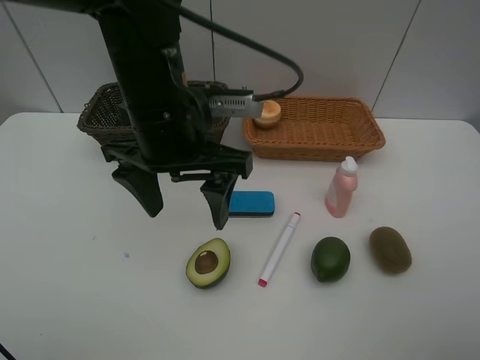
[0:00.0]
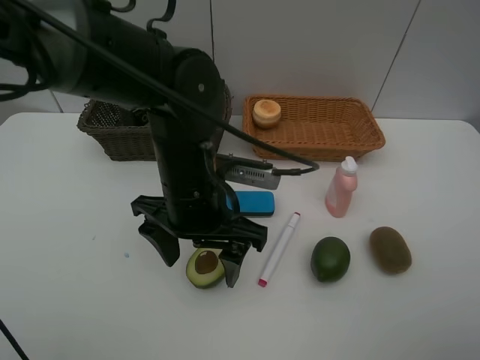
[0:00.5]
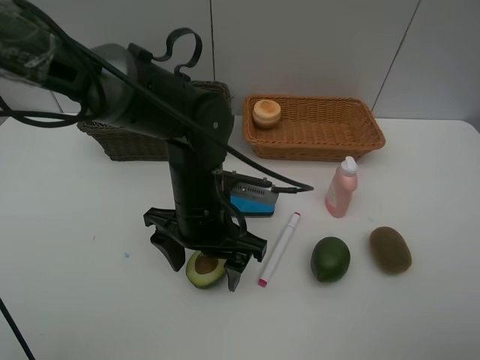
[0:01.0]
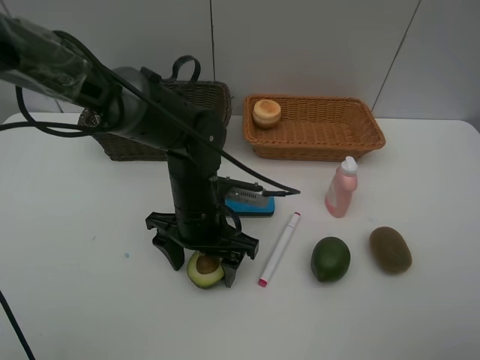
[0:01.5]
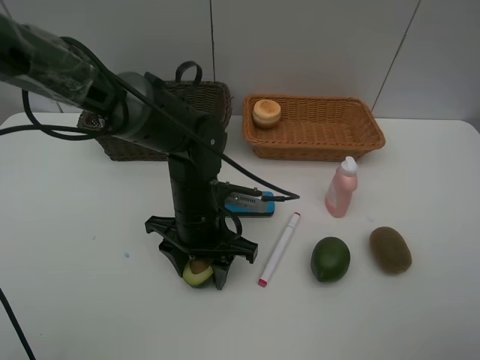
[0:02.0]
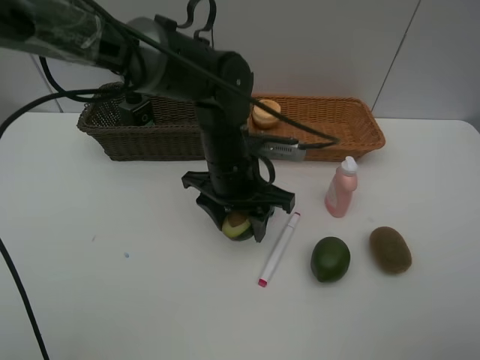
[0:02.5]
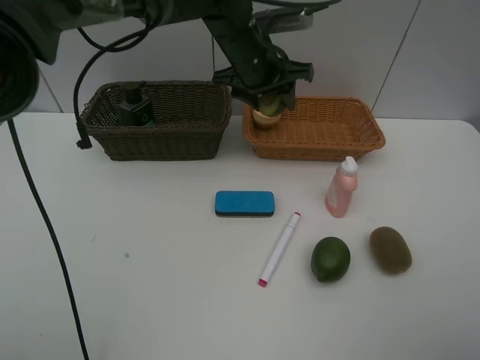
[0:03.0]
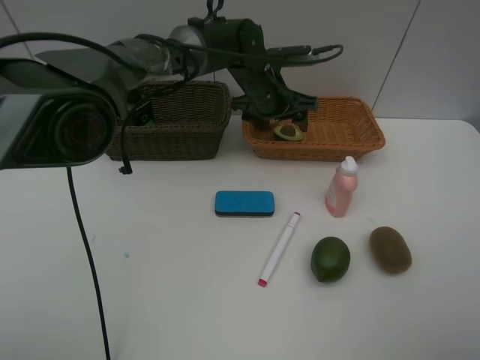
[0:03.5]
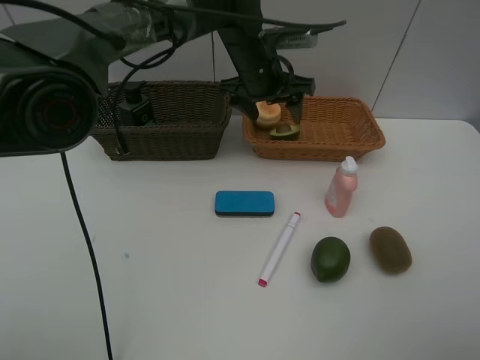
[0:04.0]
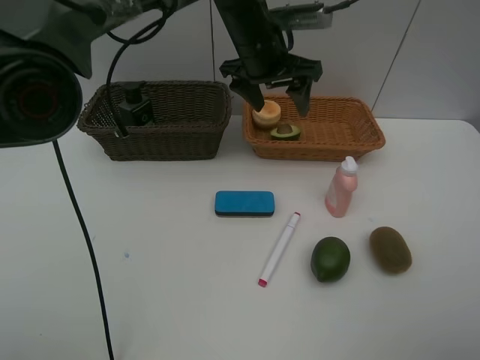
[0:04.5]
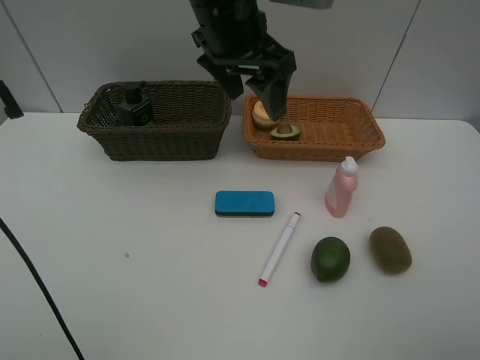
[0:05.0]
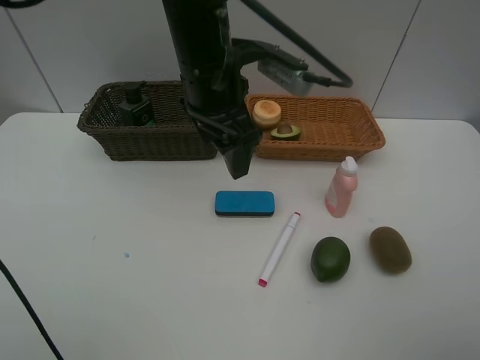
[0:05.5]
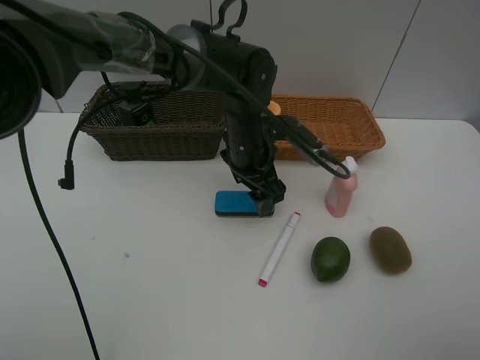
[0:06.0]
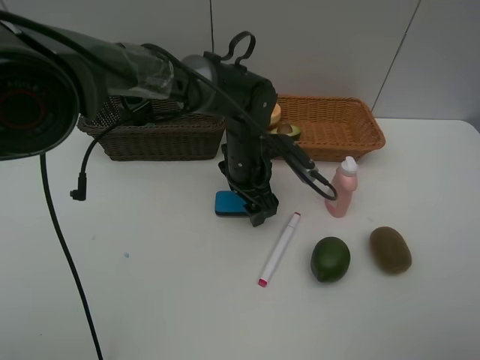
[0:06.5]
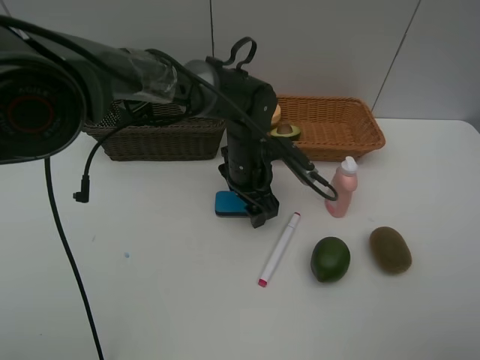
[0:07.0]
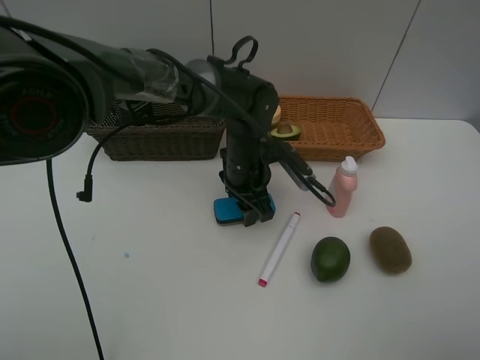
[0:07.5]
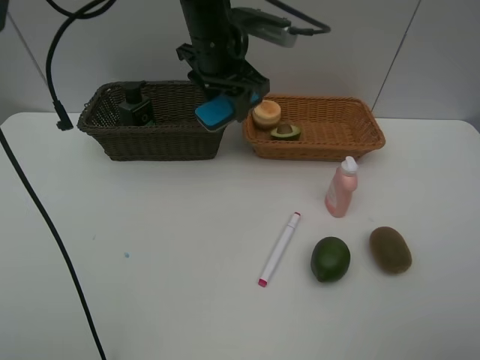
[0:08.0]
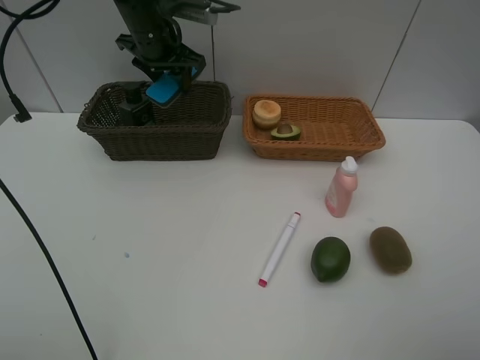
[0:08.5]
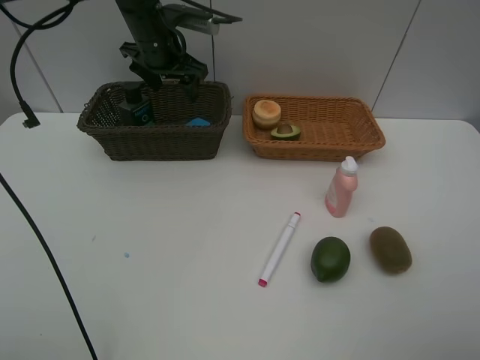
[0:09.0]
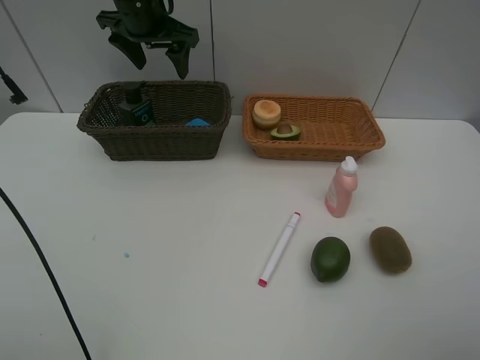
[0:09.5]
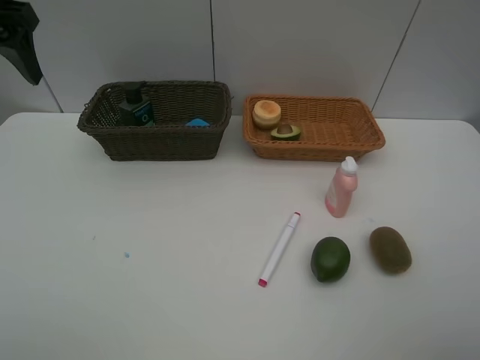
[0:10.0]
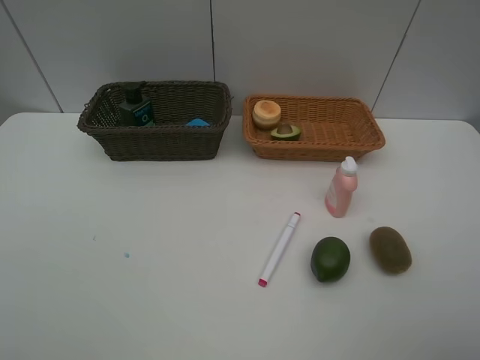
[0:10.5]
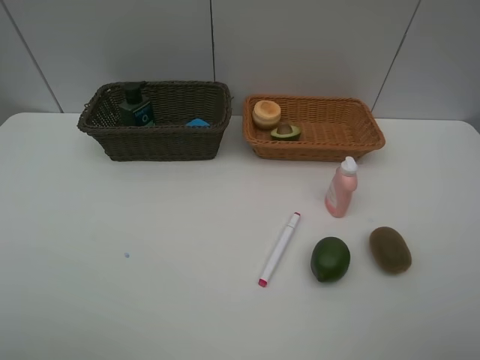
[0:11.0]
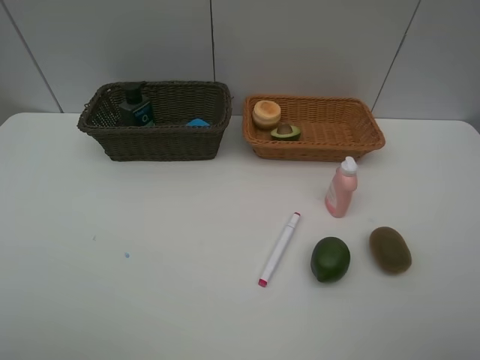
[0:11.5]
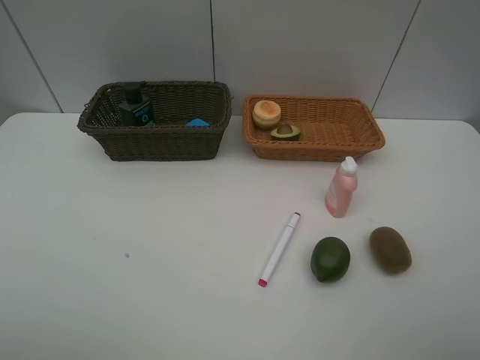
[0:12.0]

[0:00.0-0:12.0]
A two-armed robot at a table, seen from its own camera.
Task of the whole recording: Place multiple objects separately in different baskets.
Step, 0:00.0 to 0:02.0: Pick up the avocado with left gripper.
Step, 0:02.5 to 0:03.5: Place the avocado in the light basket with left gripper.
Step, 0:04.0 to 0:07.5: Pick up blackboard eraser with left gripper.
Step, 0:08.0 to 0:08.5: Place the blackboard eraser in the dark basket with left gripper.
0:00.0 to 0:02.0: The left gripper is displaced downward by roughly 15 cm, and closes.
0:02.0 to 0:04.0: The left gripper shifts about 20 cm forward and upward, and opens its fingers.
0:04.0 to 0:06.0: The left gripper shifts roughly 10 cm backward and downward.
0:06.0 to 0:08.0: The left gripper shifts approximately 15 cm upward, forward and to the left, and closes.
0:08.0 to 0:10.0: The left gripper goes about 25 cm to the left and backward, and opens up.
0:10.0 to 0:12.0: The left gripper heads backward, covering some 30 cm.

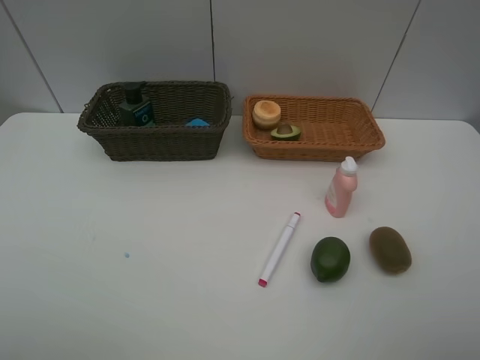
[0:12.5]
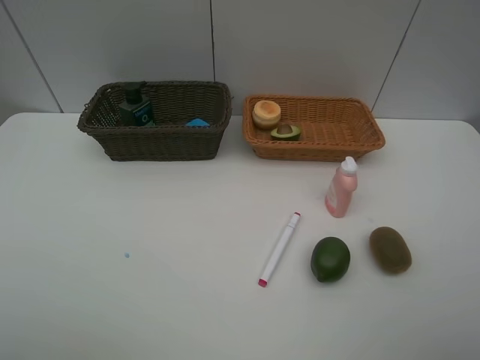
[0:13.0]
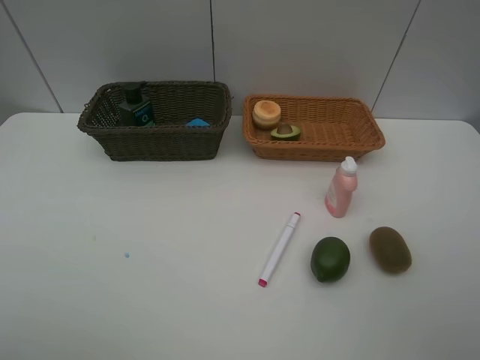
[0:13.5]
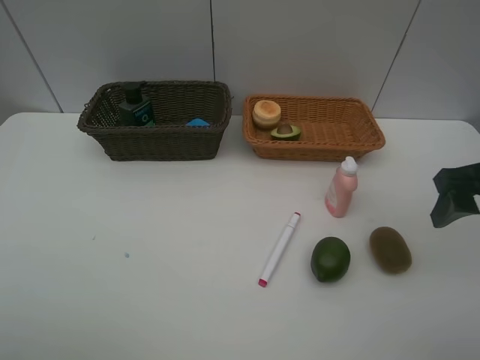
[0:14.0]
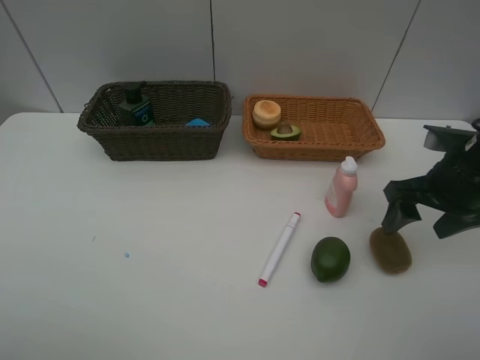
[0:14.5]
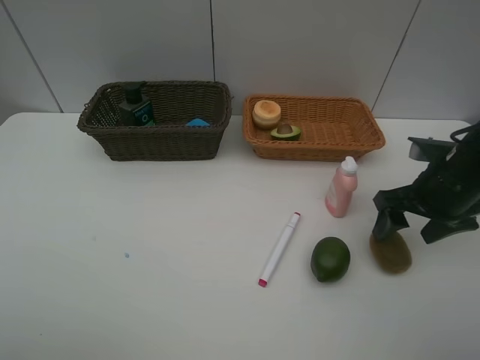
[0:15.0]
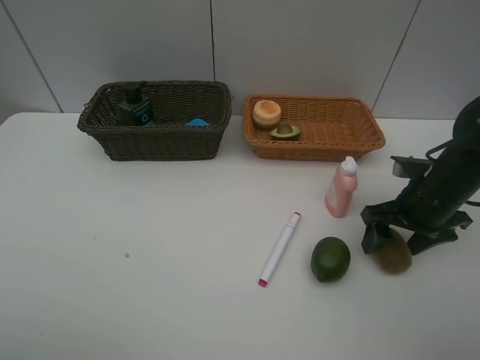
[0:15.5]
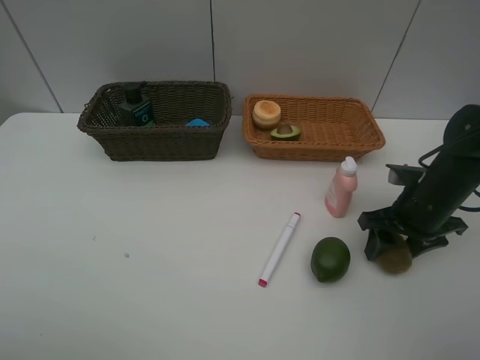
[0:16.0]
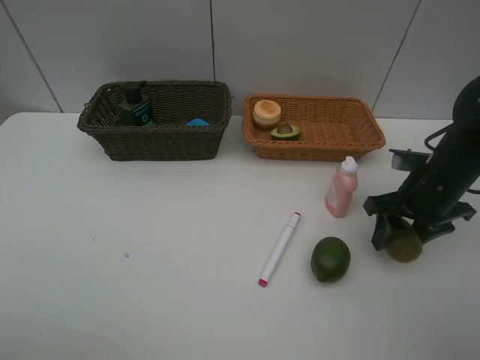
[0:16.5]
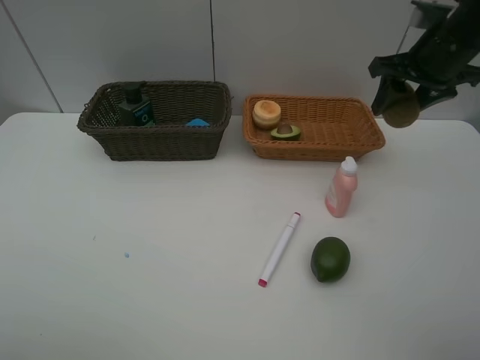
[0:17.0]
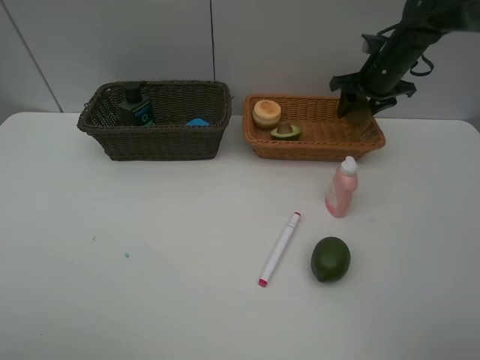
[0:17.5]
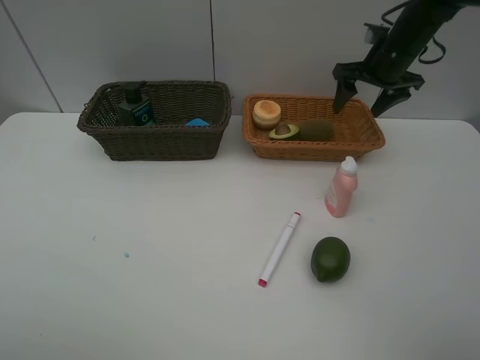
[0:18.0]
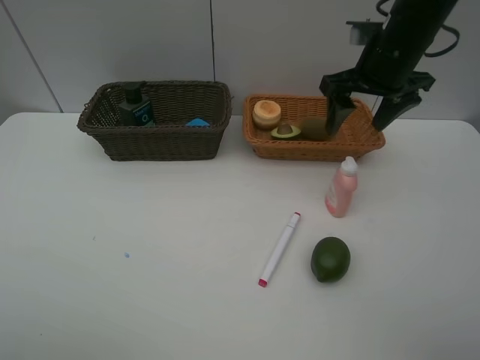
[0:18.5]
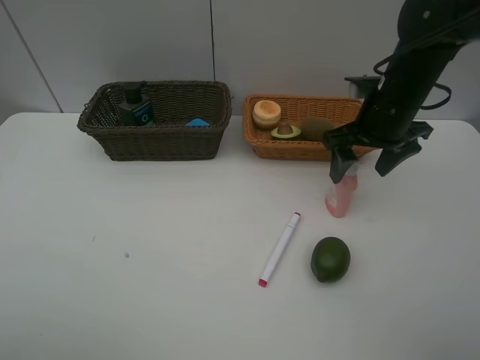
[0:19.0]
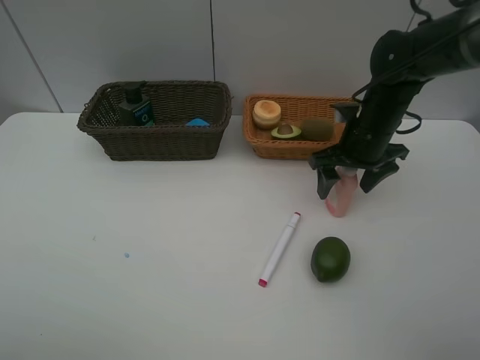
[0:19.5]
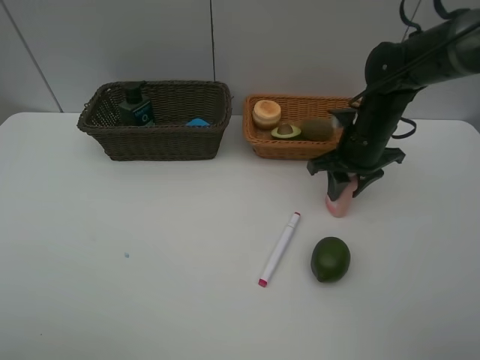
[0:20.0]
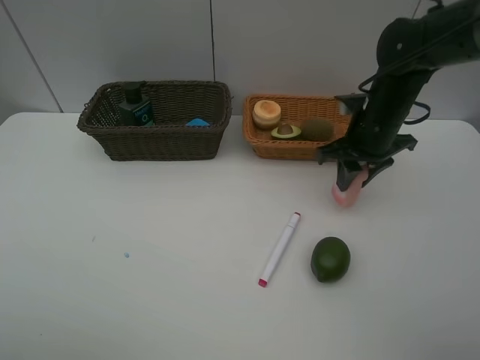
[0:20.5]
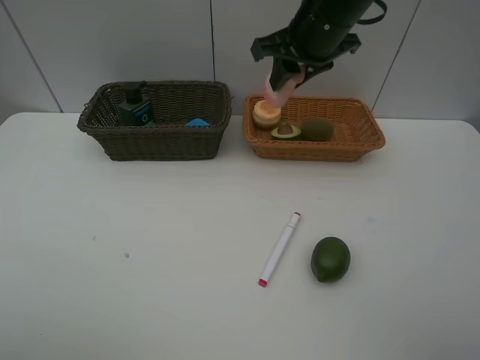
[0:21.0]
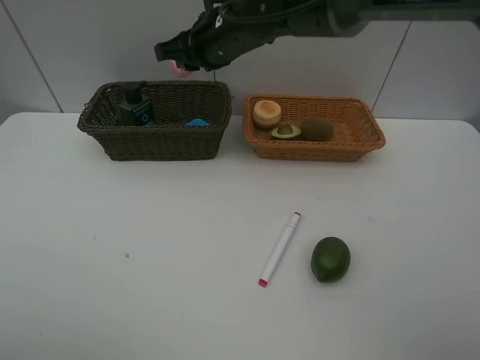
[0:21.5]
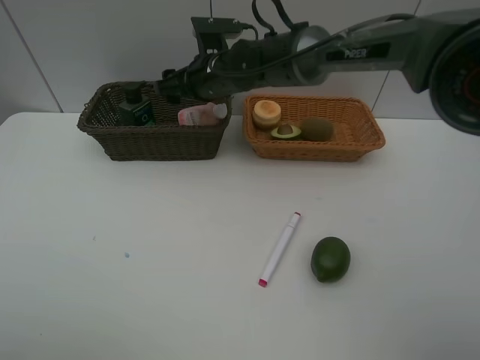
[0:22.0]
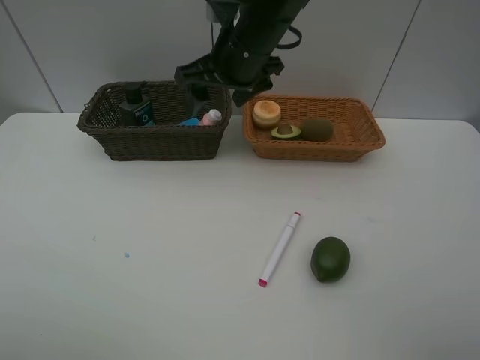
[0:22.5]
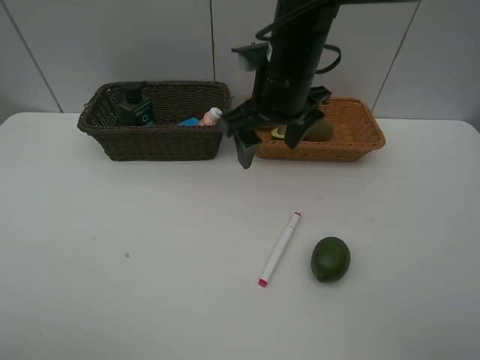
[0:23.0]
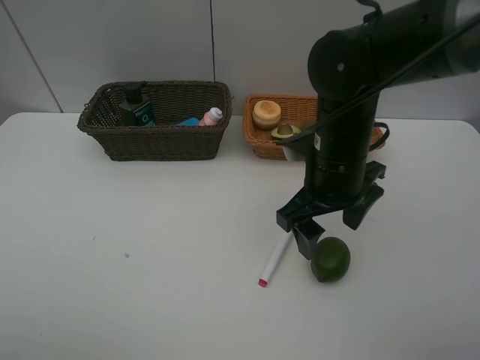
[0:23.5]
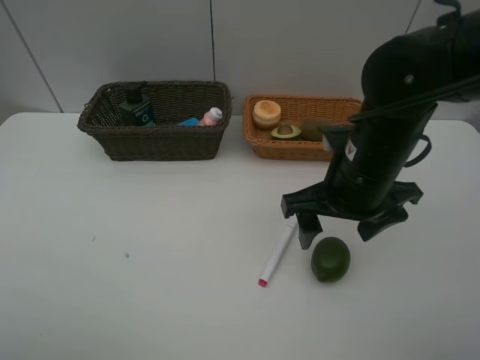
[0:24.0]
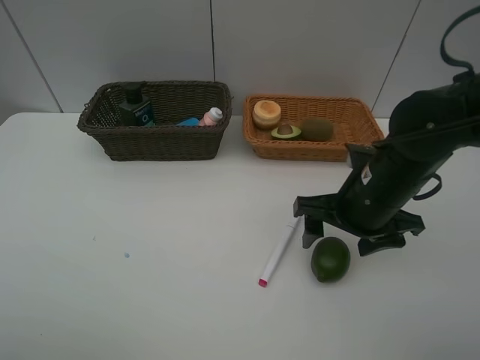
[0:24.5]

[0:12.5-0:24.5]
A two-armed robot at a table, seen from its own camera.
Task of the whole recording: Place multiple objects separately in different baskets.
Step, 0:12.5 to 0:16.5: Pick up kiwi with right gripper.
Step, 0:17.0 to 0:18.0: Place the kiwi in the light basket with right gripper.
Step, 0:18.5 to 0:20.5: Pick up the laundry detergent with right gripper.
Step, 0:21.0 to 0:22.0: Place the laundry detergent in the dark basket with right gripper.
0:12.5 to 0:14.5: The right gripper shifts roughly 25 cm forward and downward.
0:14.5 to 0:16.5: The right gripper changes place by some 5 cm, and closes its fingers.
0:16.5 to 0:18.5: The right gripper shifts about 20 cm upward, forward and to the left, and opens.
0:18.5 to 0:20.5: The right gripper travels downward by roughly 10 cm, and closes.
0:20.5 to 0:22.5: The right gripper travels to the left and upward by roughly 20 cm, and opens its fingers.
0:22.5 to 0:24.5: The right gripper moves to the right, backward and downward, about 25 cm.

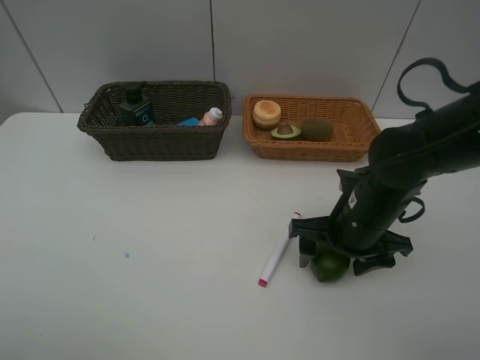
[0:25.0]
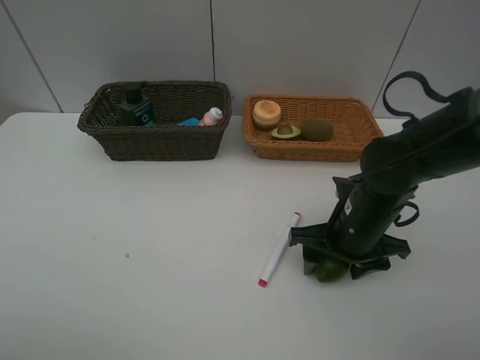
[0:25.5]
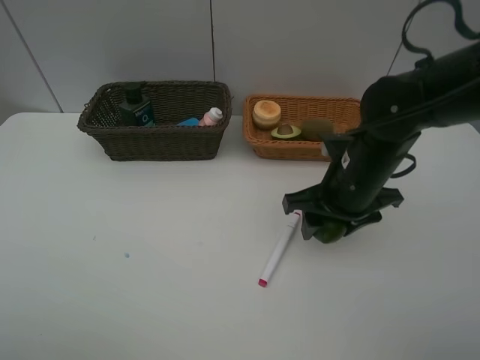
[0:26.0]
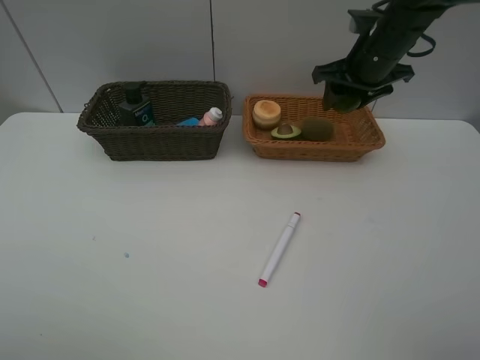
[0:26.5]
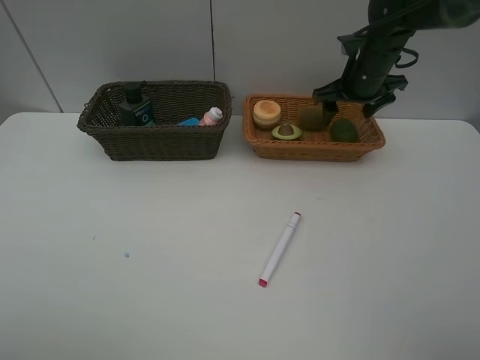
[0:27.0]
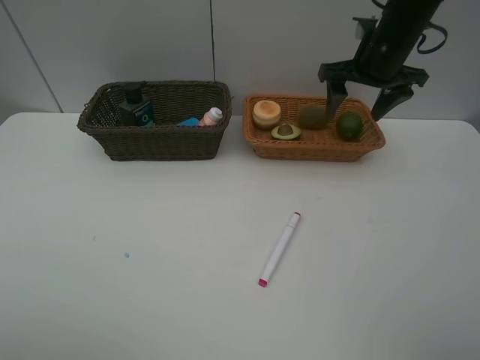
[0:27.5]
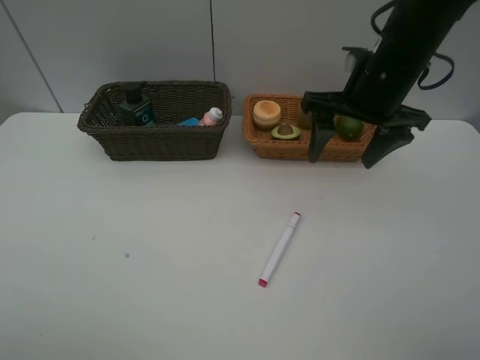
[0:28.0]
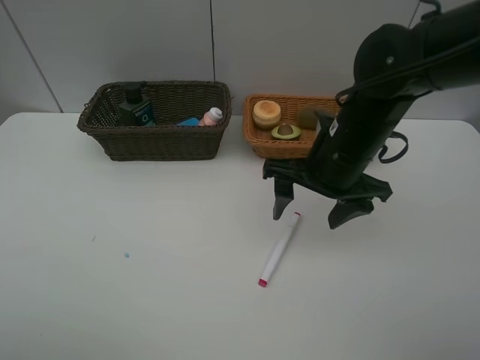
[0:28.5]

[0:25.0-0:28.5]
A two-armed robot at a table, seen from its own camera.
Task of the whole recording: Place multiple objects separately in different baskets.
Step, 0:26.5 to 0:27.0: Place the lime in the light basket with right gripper.
0:25.0 to 0:27.0: The right gripper travels forward and upward by about 25 cm.
0:27.0 to 0:28.5: The right gripper travels backward and to the left by some 20 cm.
